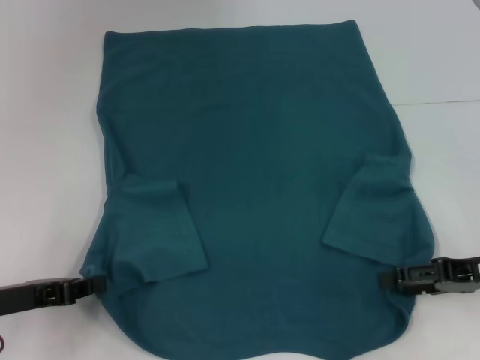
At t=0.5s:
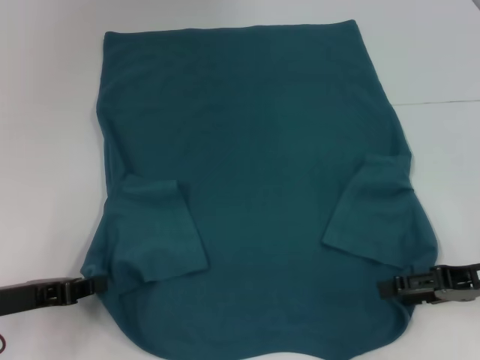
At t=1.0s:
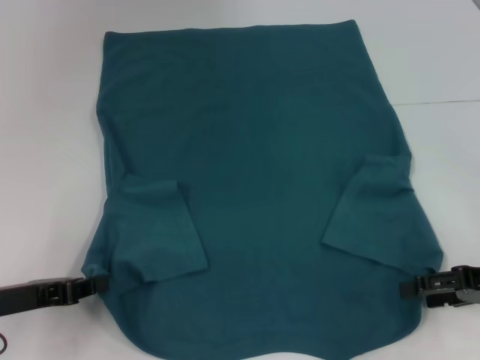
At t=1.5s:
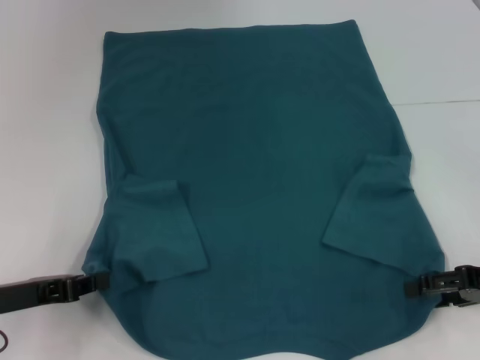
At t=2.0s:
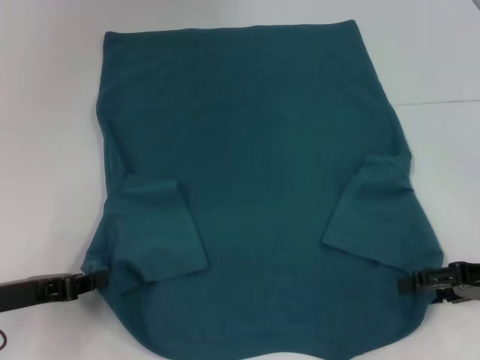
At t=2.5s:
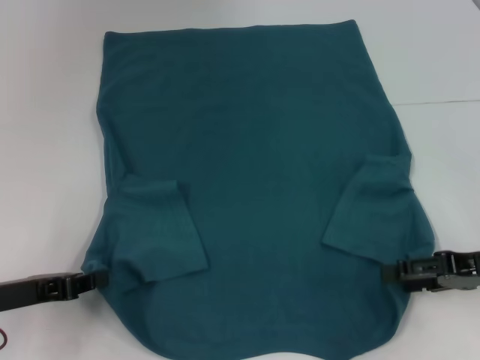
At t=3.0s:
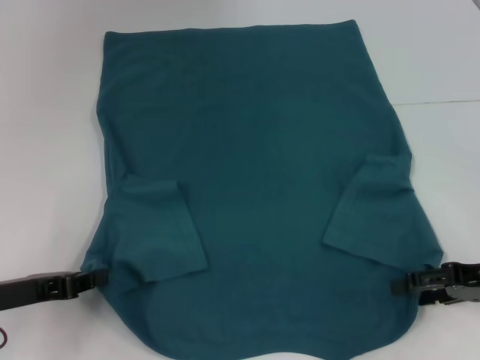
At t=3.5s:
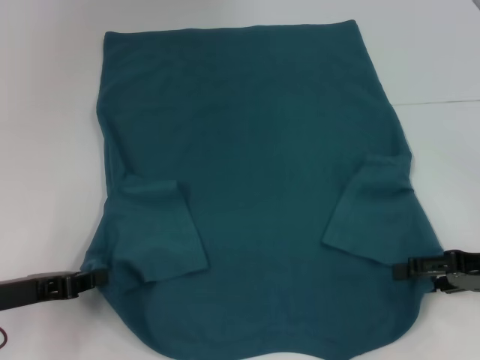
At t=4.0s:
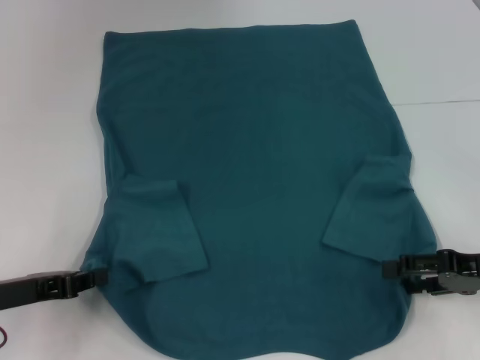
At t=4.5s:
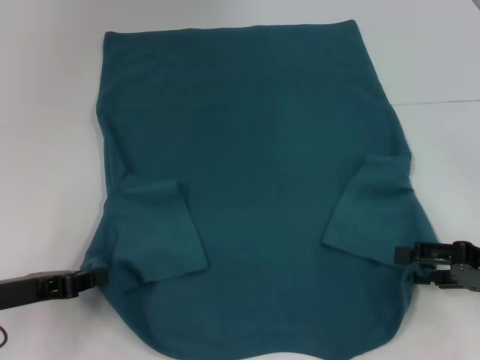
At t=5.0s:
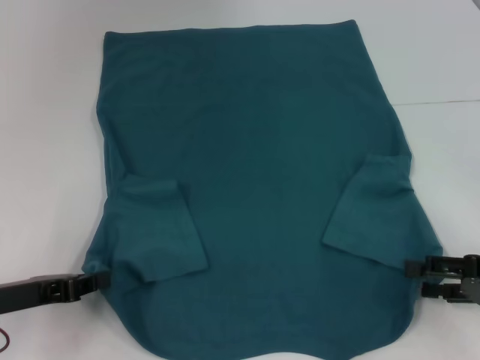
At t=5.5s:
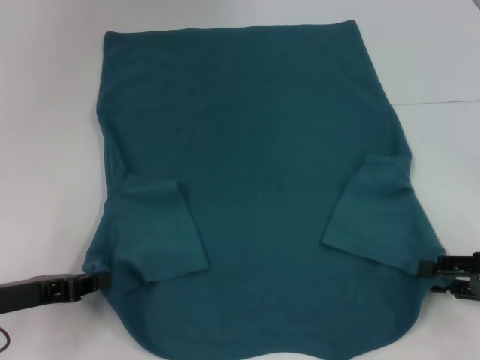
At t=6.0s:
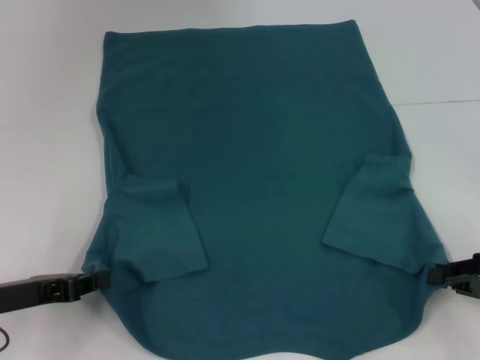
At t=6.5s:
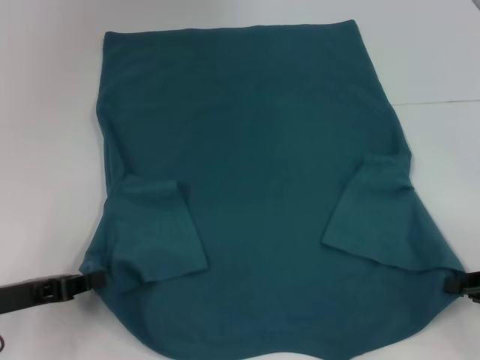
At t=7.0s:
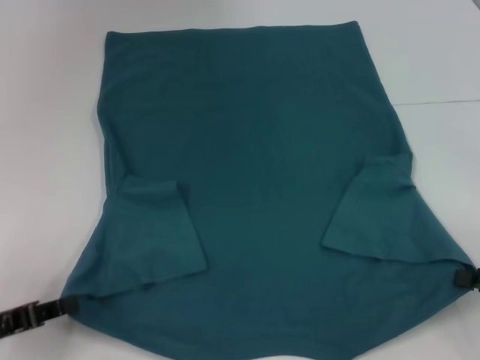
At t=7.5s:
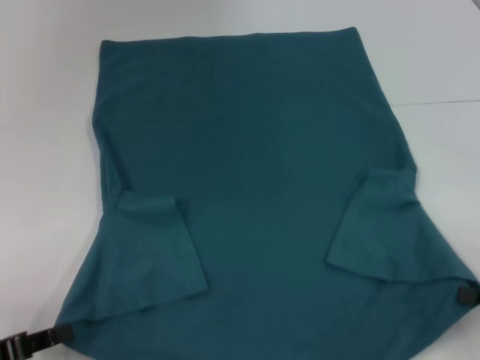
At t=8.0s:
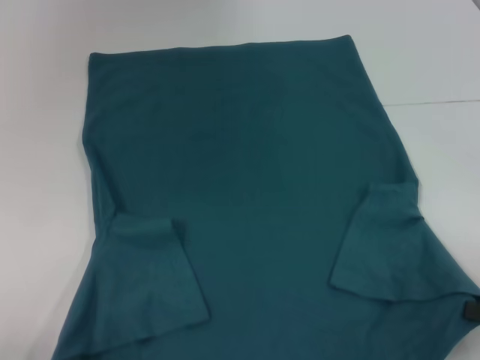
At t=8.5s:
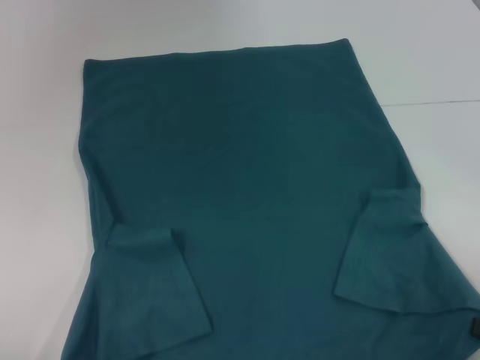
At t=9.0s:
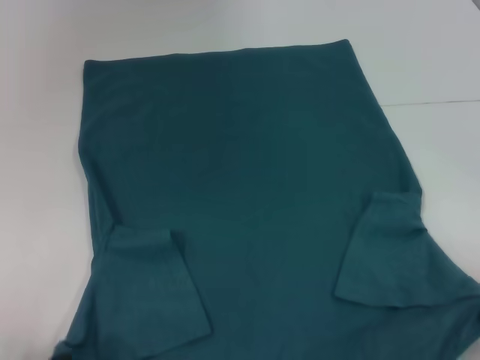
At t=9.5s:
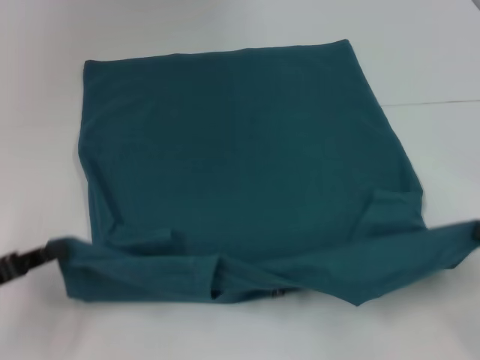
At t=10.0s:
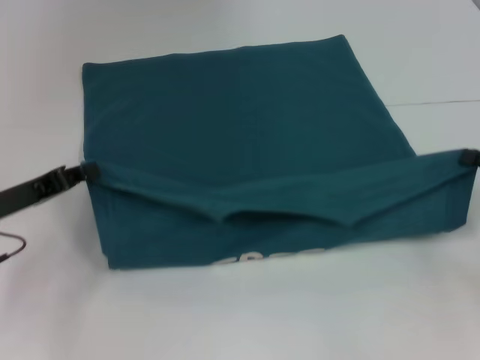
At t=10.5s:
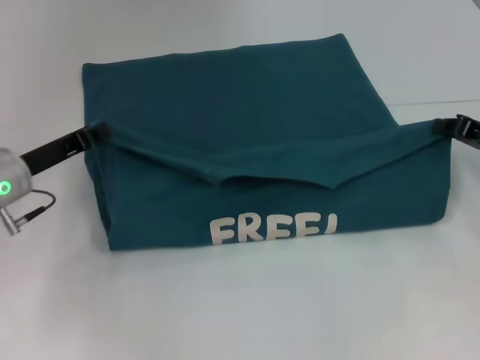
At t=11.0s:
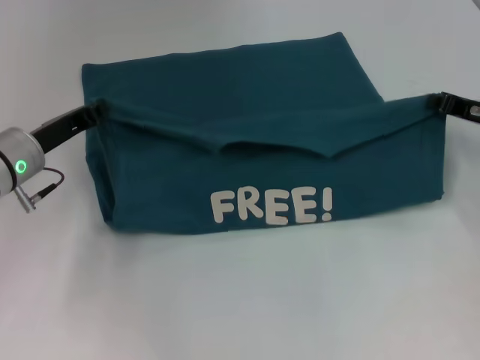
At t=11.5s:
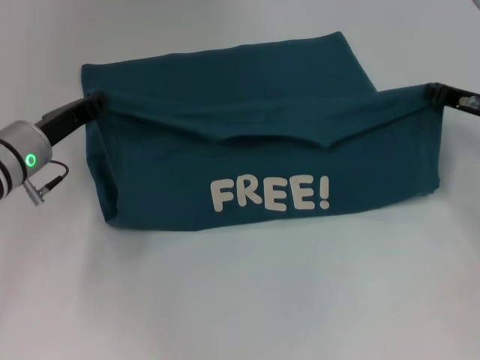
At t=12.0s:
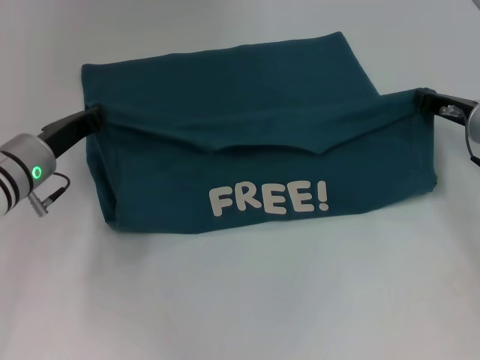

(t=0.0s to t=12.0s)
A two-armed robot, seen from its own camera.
Step, t=0.0s - t=6.0s: Grab the bottom right corner with your right hand.
t=0.0s - t=4.0s: The grippers make only small movements.
t=4.0s - t=6.0s: The right gripper closes its fingers.
t=6.0s - t=8.0s: The left gripper goes some 10 cm backward. Meanwhile the right gripper is displaced backward by about 5 cm.
t=8.0s - t=10.0s: Both grippers travel together forward, about 15 cm.
t=10.0s - t=12.0s: The right gripper shifts roughly 15 cm forward and to the left. The left gripper goes approximately 10 cm forward and to the right.

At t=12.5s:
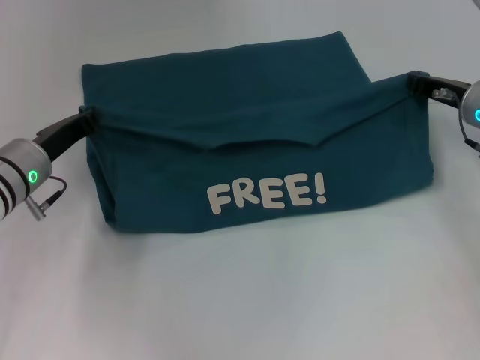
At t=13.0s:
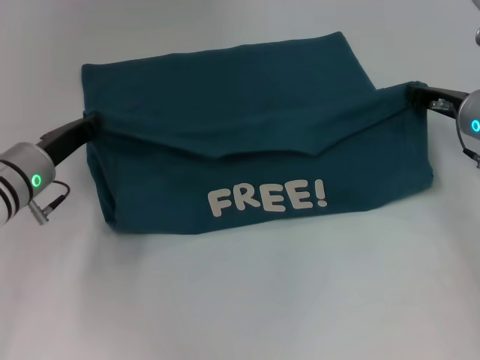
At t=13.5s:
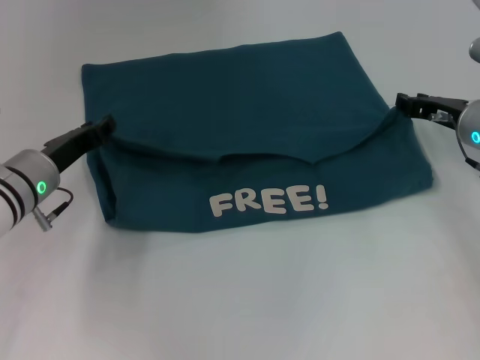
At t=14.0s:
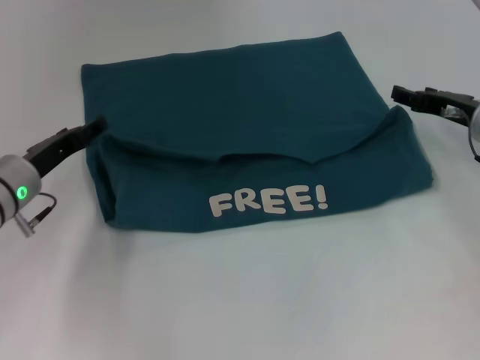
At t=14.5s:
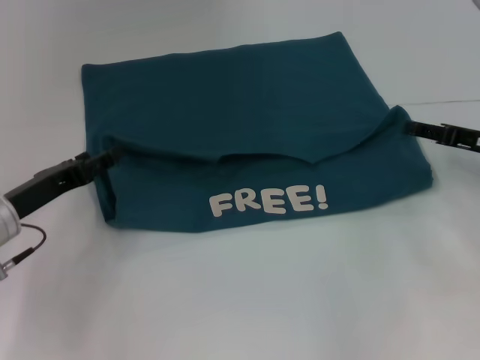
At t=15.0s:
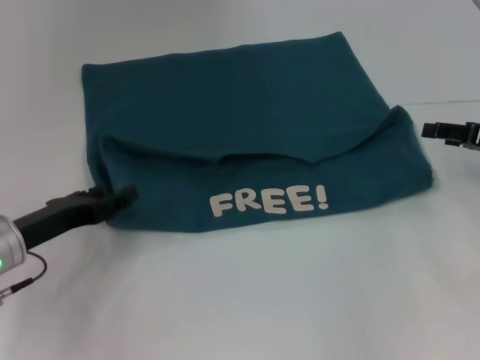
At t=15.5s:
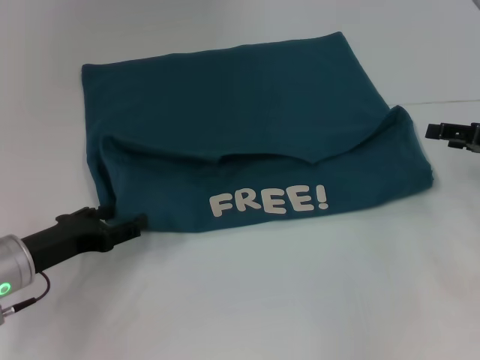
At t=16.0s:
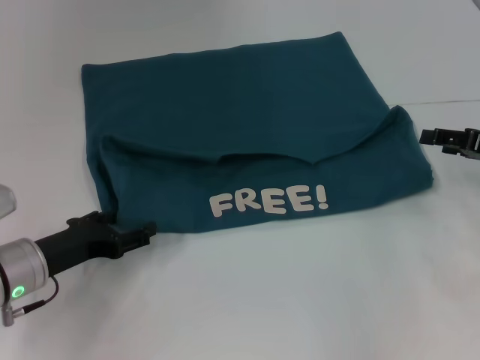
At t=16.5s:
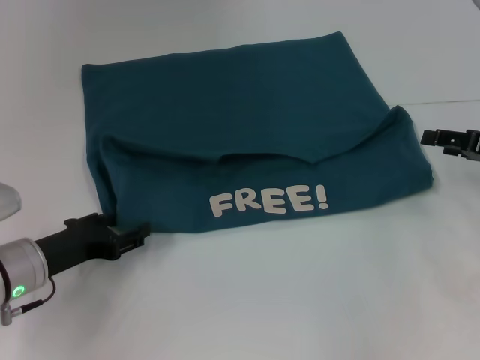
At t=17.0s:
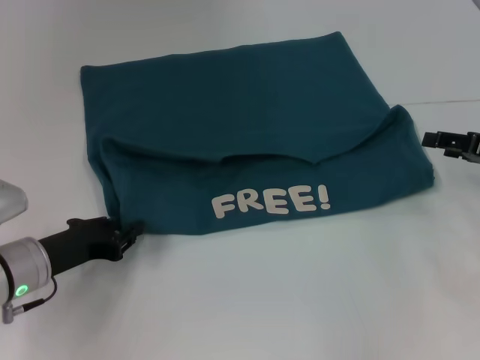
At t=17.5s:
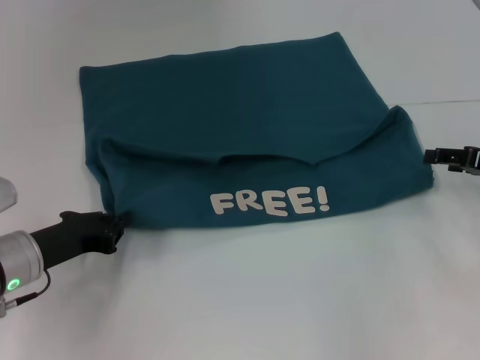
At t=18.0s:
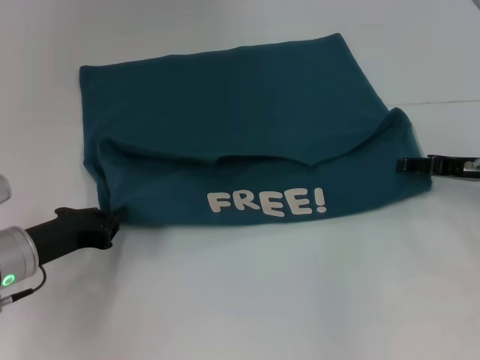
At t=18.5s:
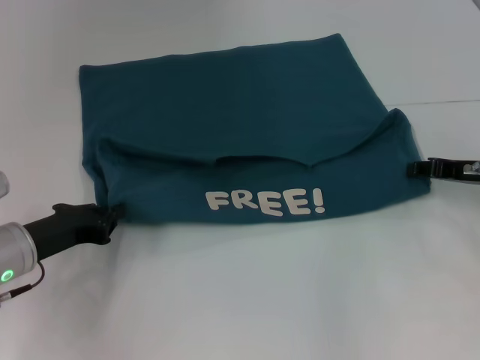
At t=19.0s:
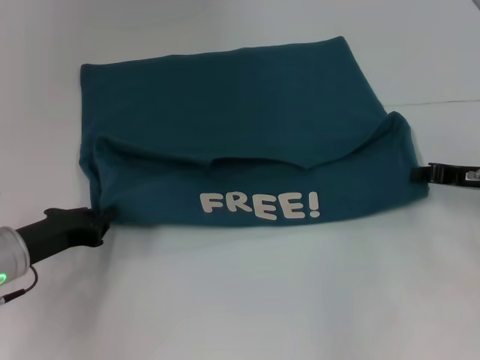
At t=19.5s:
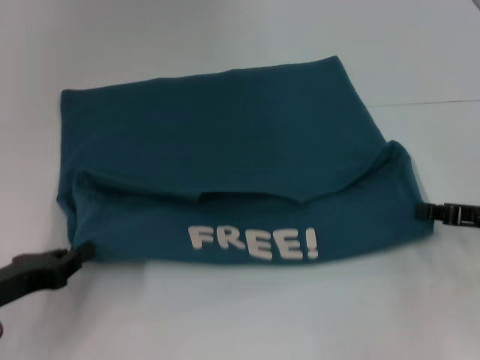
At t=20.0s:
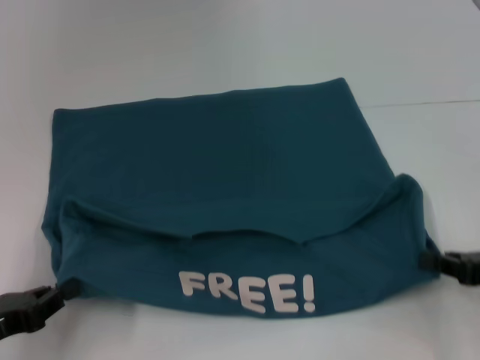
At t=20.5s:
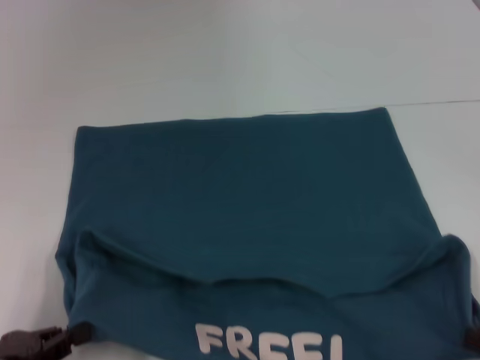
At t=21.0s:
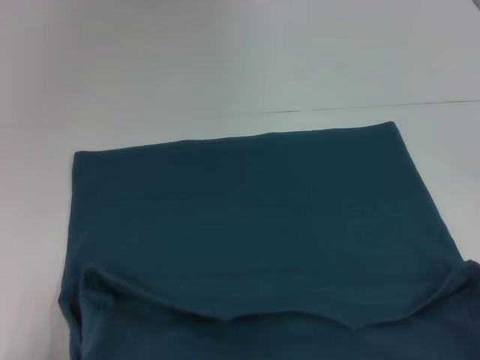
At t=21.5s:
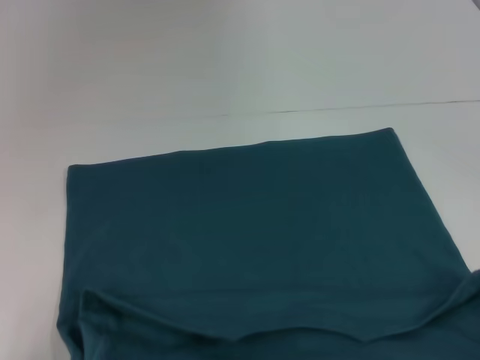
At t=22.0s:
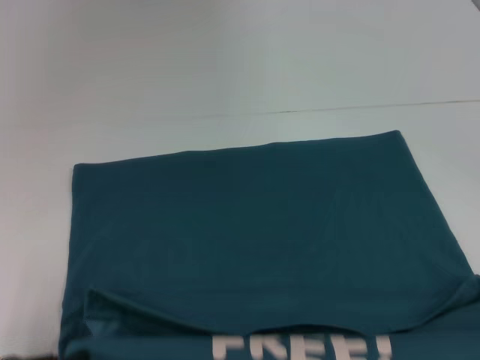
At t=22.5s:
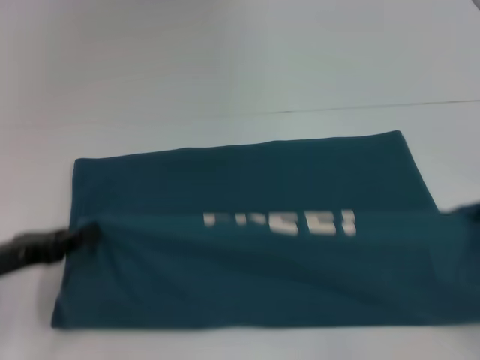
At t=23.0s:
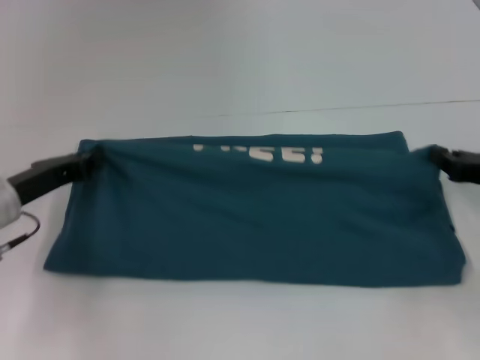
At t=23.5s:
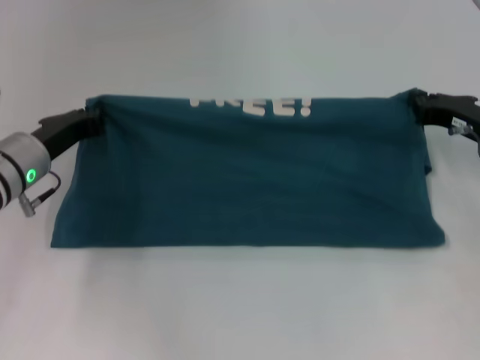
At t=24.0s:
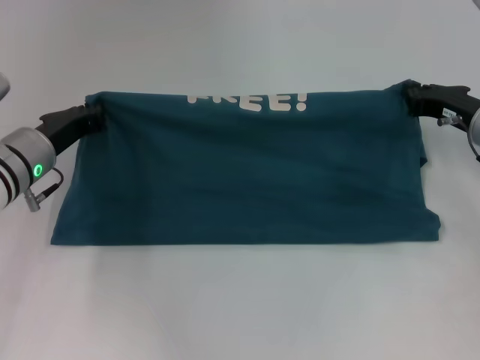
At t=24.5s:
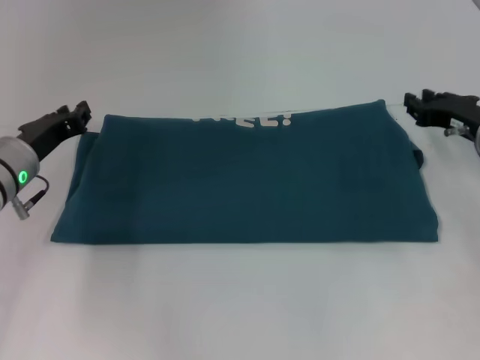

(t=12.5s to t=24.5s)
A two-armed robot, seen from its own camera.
Step, t=14.0s - t=21.5s: Pull the clothes with your left hand.
Step, t=14.0s - t=21.5s: Pull the clothes with your right hand.
Step, t=22.0s - t=24.5s: Fold the clothes to the left.
Step, t=22.0s - t=24.5s: Fold the clothes to the right.
t=12.5s - t=14.5s: Both grippers move backward, roughly 5 cm. The right gripper opens. The left gripper opens up.
t=16.5s - t=18.5s: The left gripper closes up; the right gripper ends up approximately 5 cm from where it was.
t=18.5s - t=20.5s: The left gripper travels backward and to the left by about 15 cm. Meanwhile the right gripper moves backward, approximately 20 cm, and closes its fingers.
t=20.5s - t=22.5s: The grippers both shift forward by approximately 10 cm.
t=22.5s - t=24.5s: The right gripper goes roughly 20 cm forward and to the left. Meanwhile the left gripper moves forward and to the right, roughly 15 cm.

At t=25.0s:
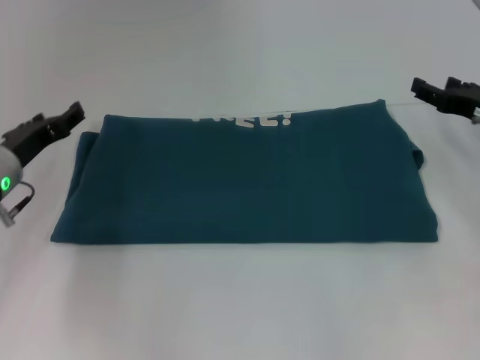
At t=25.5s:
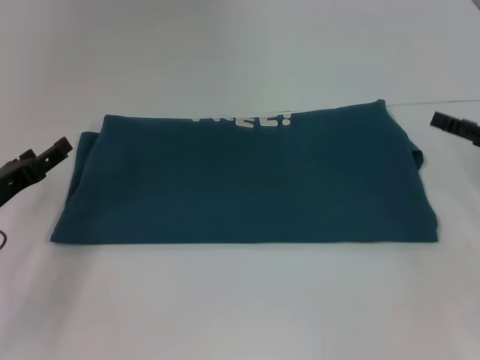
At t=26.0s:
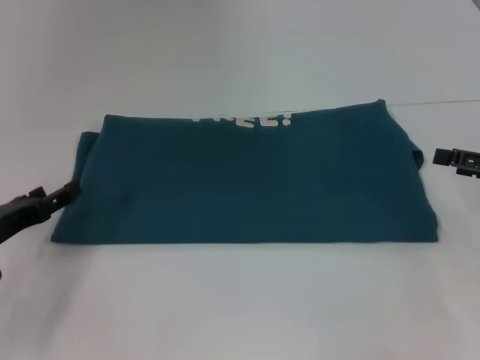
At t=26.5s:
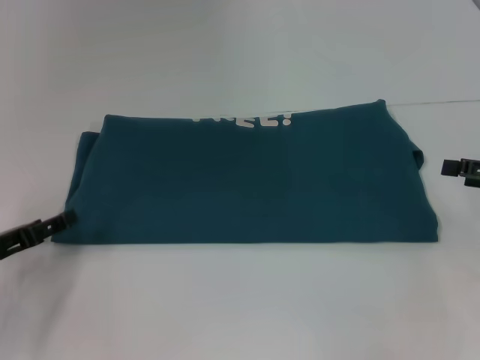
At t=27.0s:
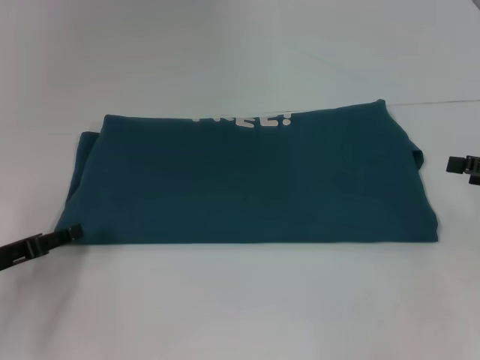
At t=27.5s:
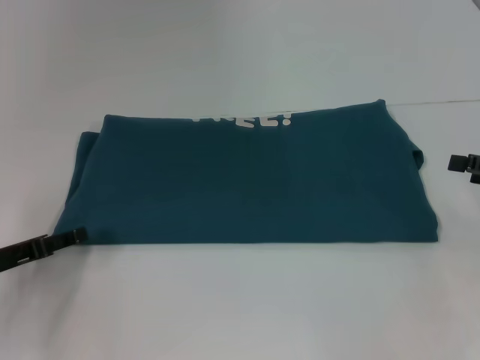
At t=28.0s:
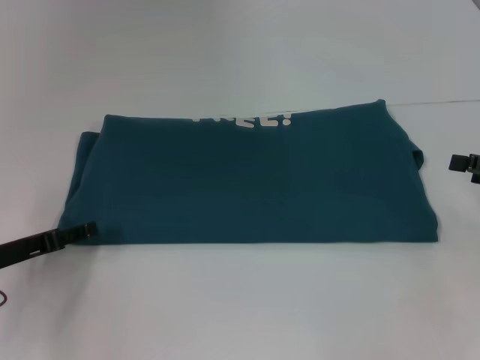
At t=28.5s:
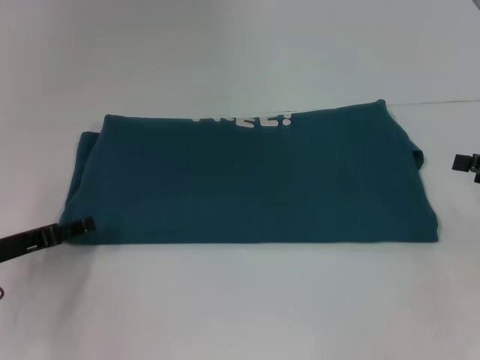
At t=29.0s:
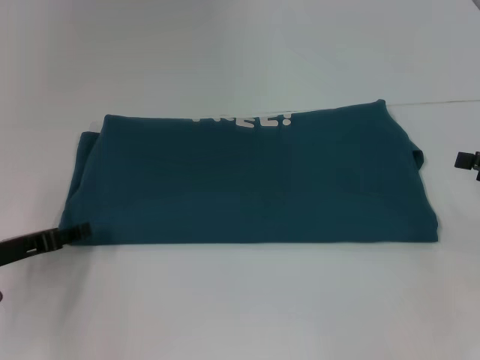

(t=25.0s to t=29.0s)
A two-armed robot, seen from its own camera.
t=25.0s - t=27.0s: The left gripper moves backward and to the left, approximately 10 cm. Meanwhile the right gripper goes approximately 10 cm backward and to the right.
